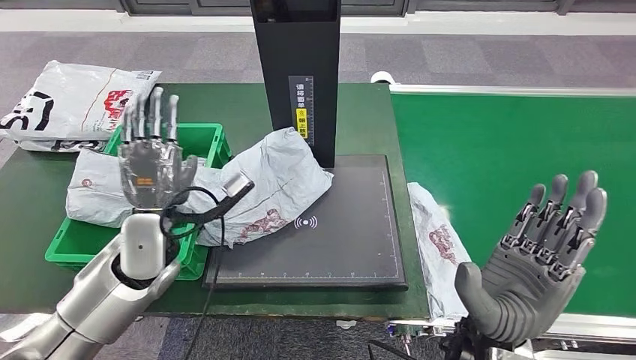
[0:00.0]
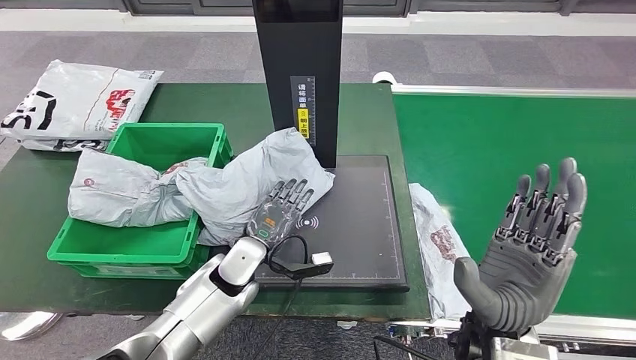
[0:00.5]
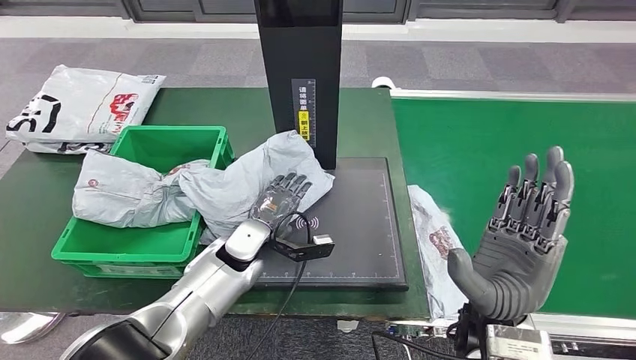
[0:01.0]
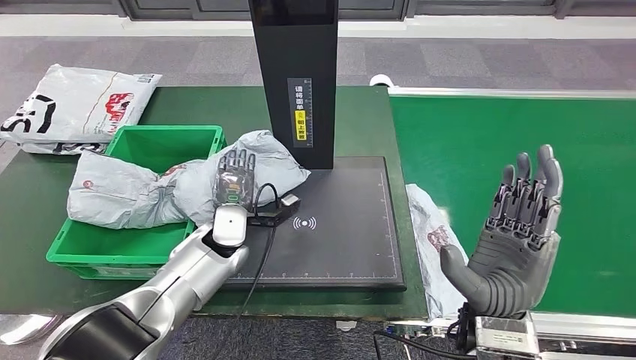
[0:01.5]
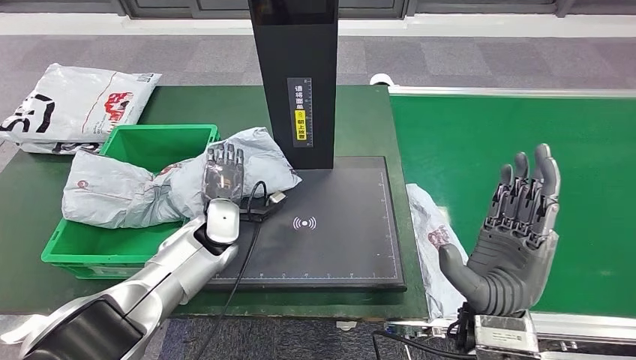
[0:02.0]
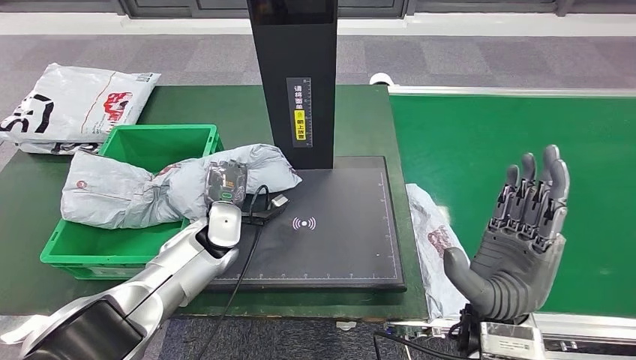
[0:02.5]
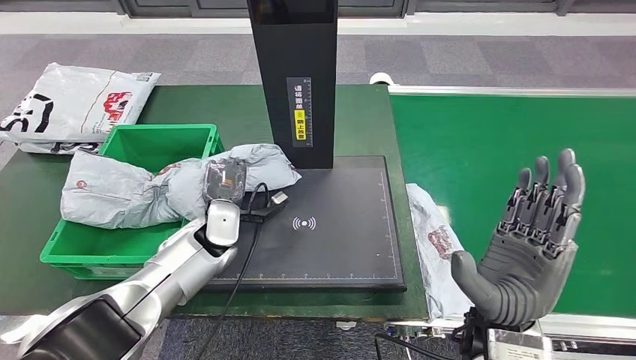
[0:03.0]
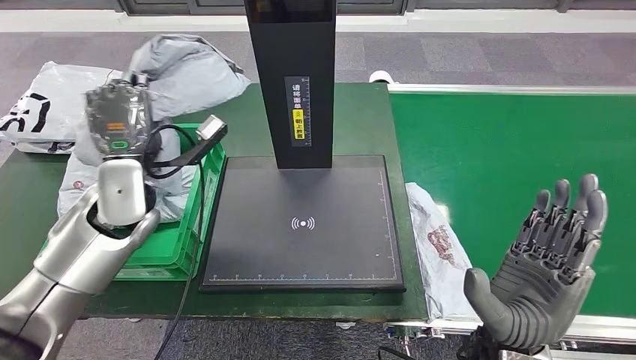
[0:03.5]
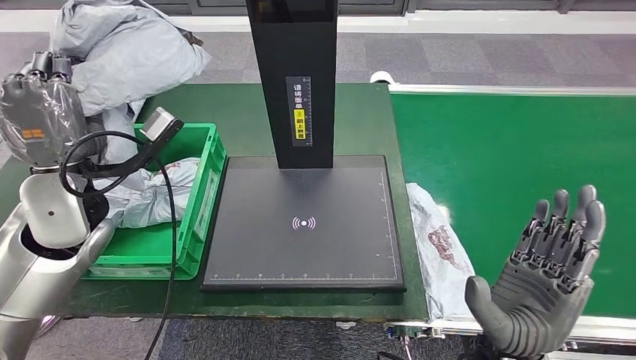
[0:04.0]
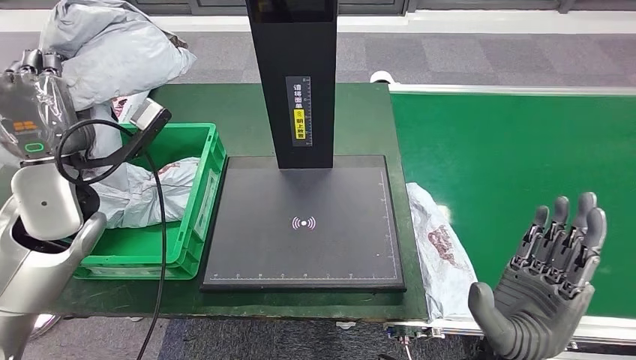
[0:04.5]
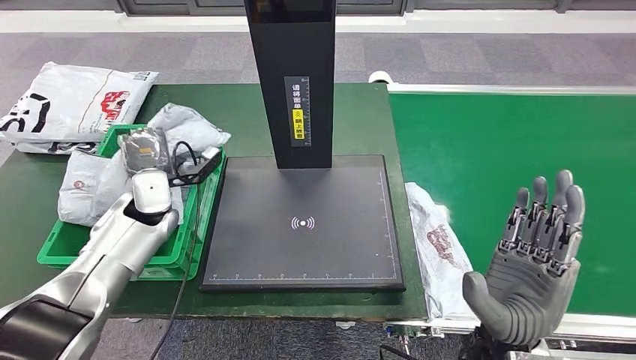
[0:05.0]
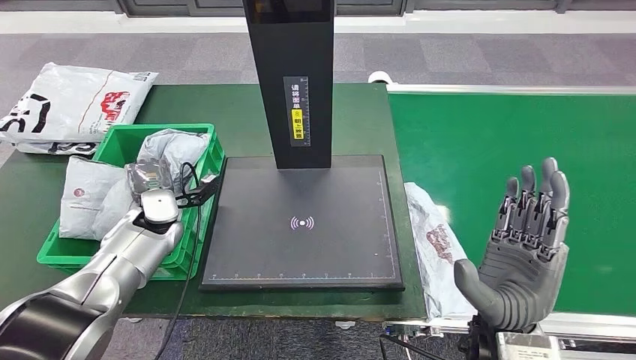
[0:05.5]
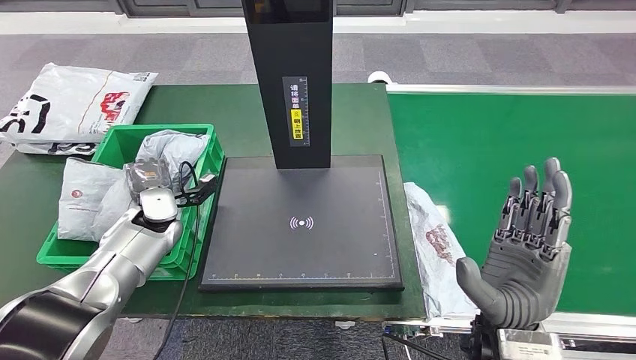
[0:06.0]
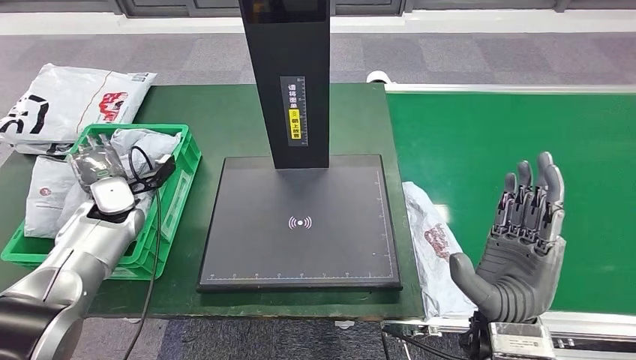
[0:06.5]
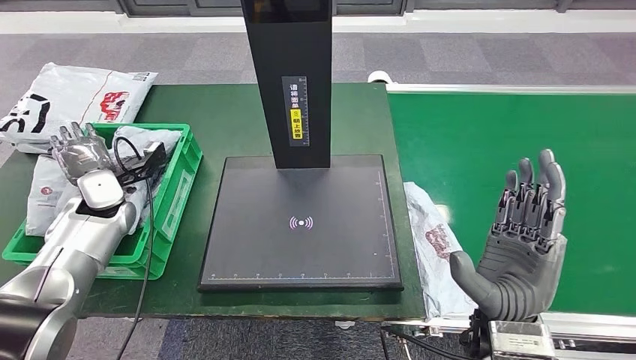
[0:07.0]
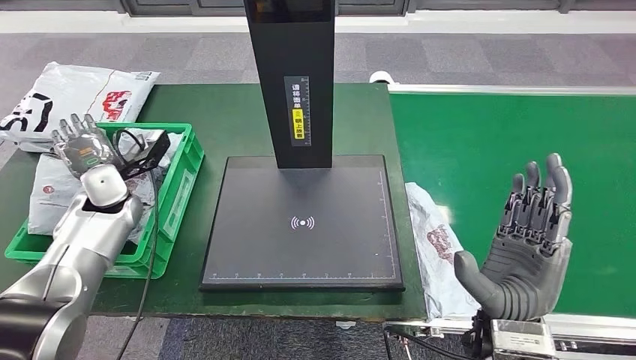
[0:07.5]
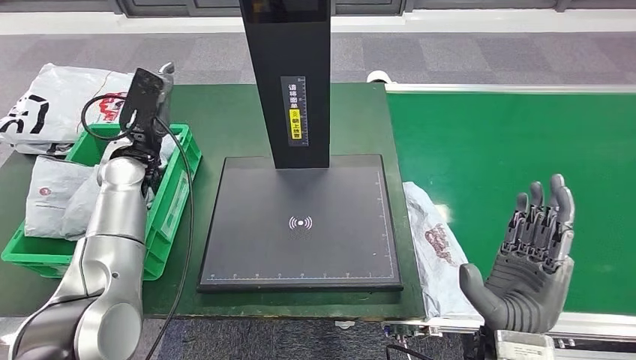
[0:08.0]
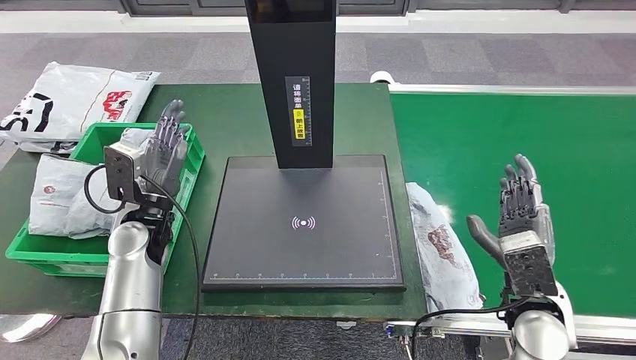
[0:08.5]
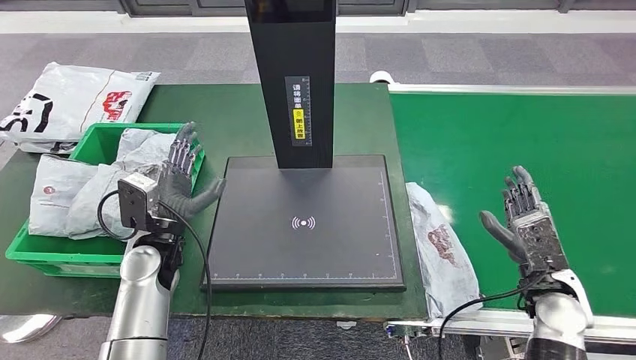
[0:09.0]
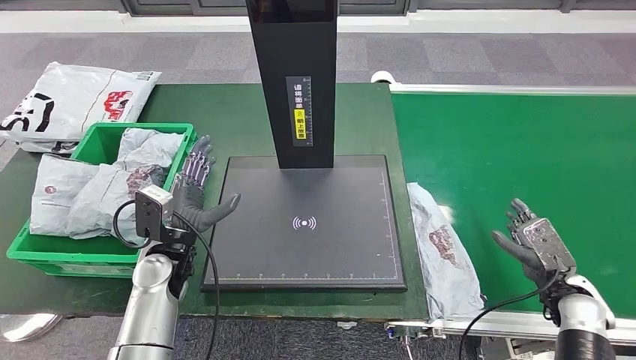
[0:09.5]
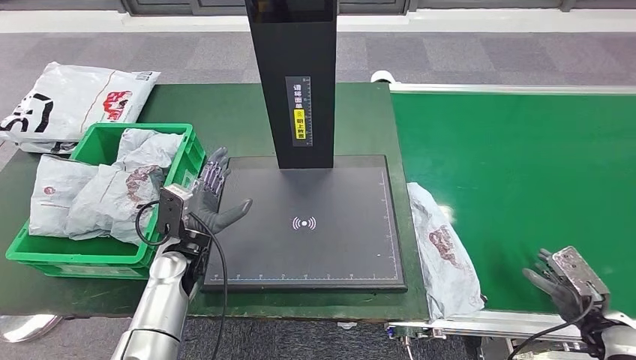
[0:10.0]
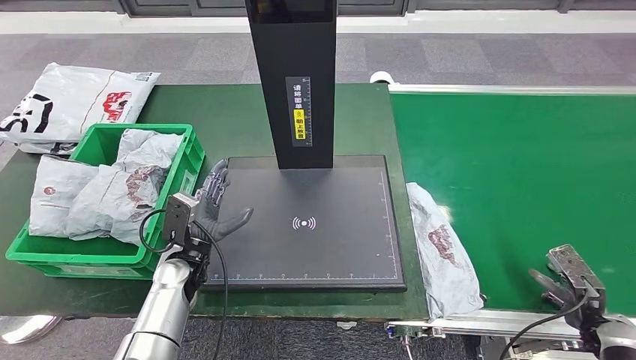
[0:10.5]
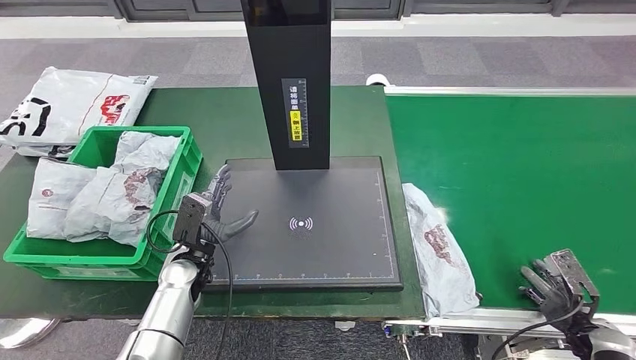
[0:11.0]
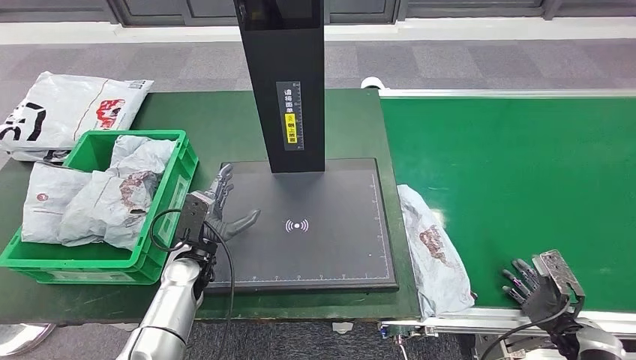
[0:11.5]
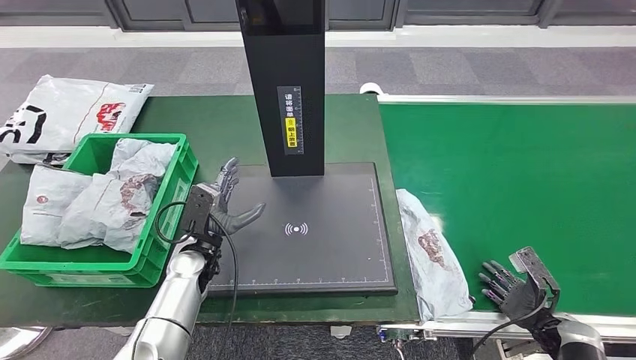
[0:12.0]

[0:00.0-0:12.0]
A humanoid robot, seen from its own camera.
Step, 0:00.0 to 0:04.5: Pick up the parcel from the inbound machine.
Step, 0:05.0 to 0:08.5: Place the parcel into the delivery box.

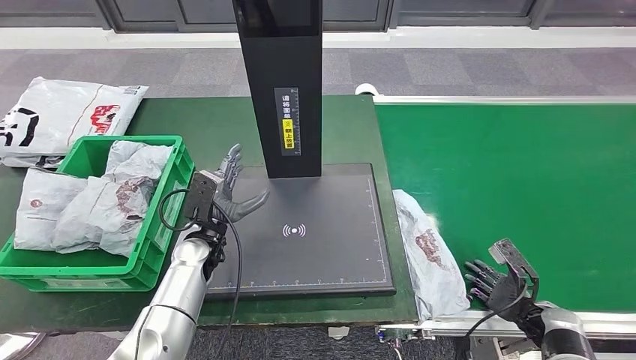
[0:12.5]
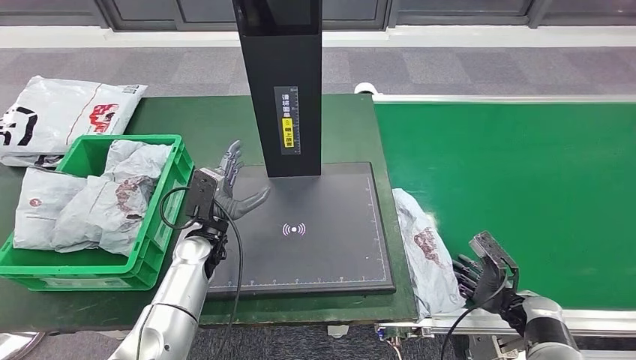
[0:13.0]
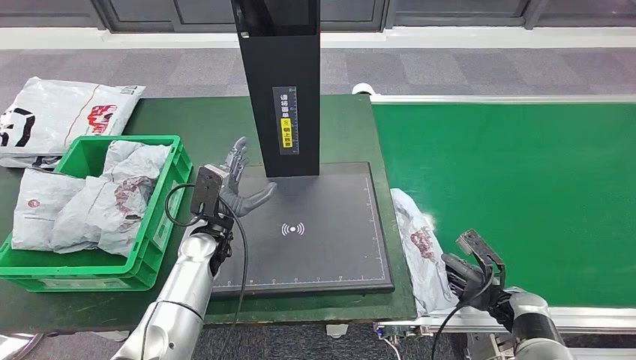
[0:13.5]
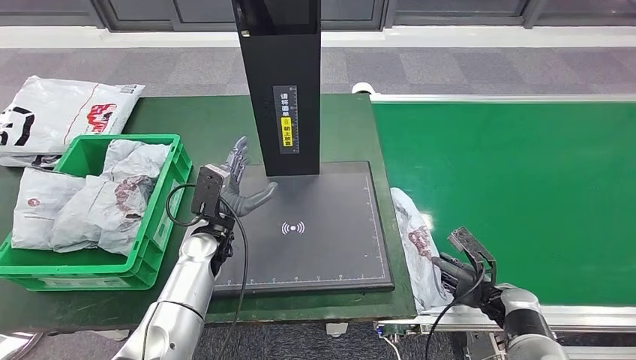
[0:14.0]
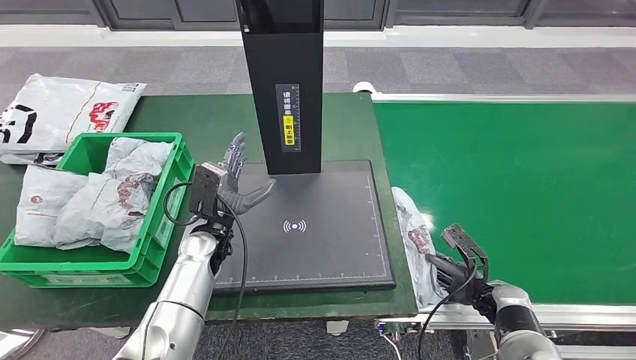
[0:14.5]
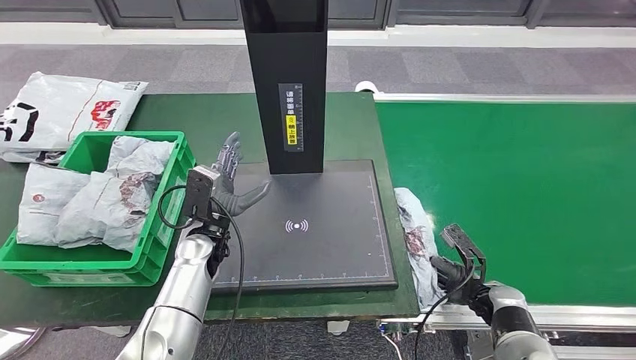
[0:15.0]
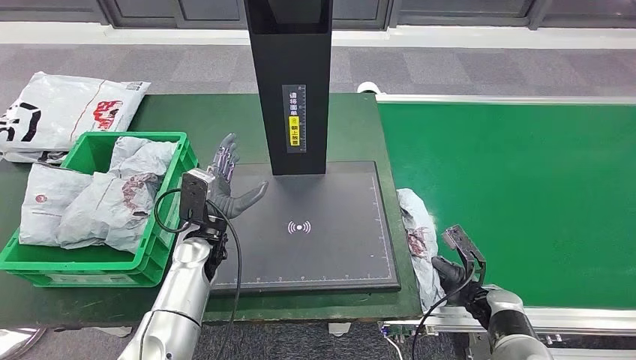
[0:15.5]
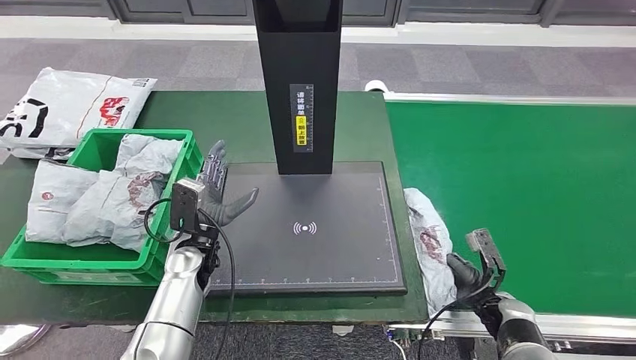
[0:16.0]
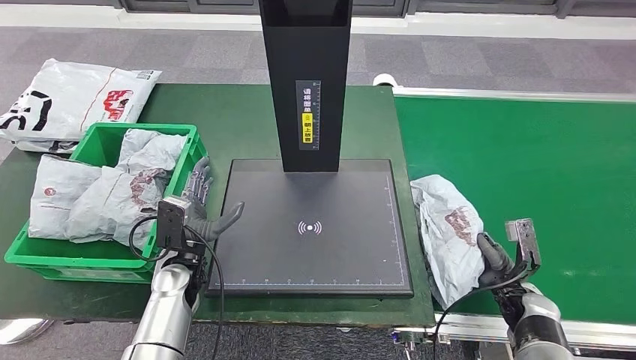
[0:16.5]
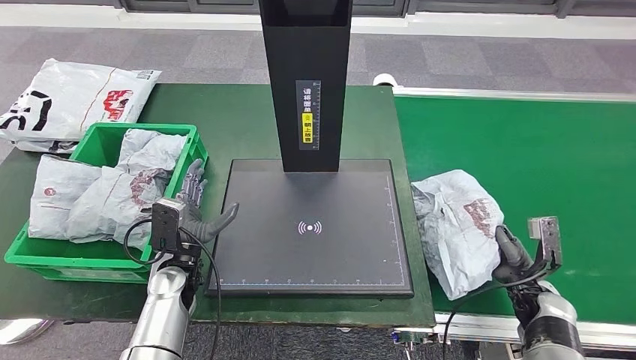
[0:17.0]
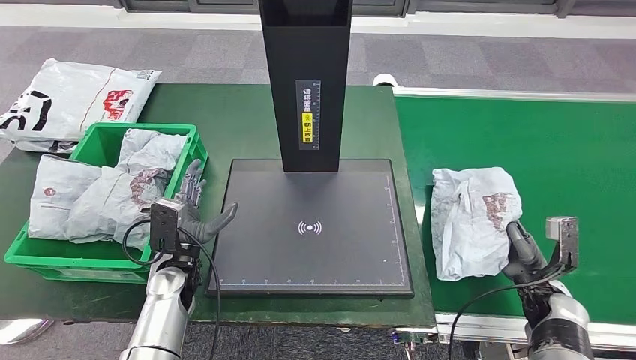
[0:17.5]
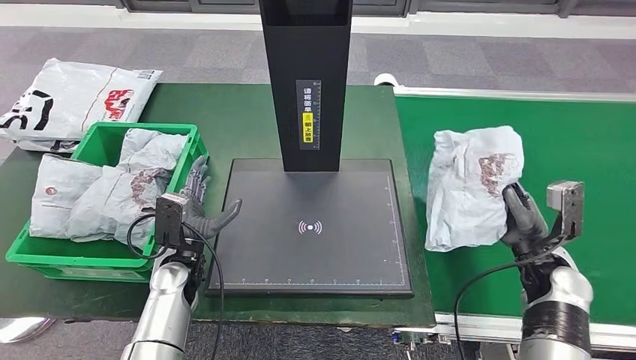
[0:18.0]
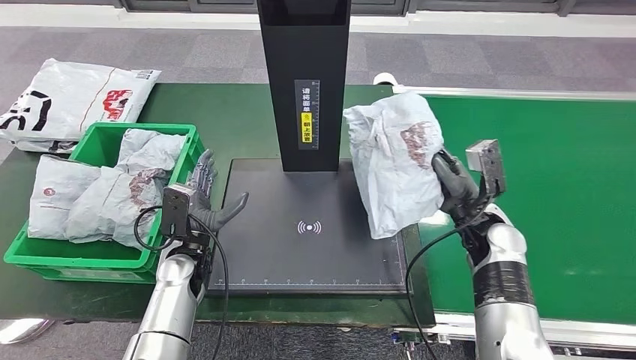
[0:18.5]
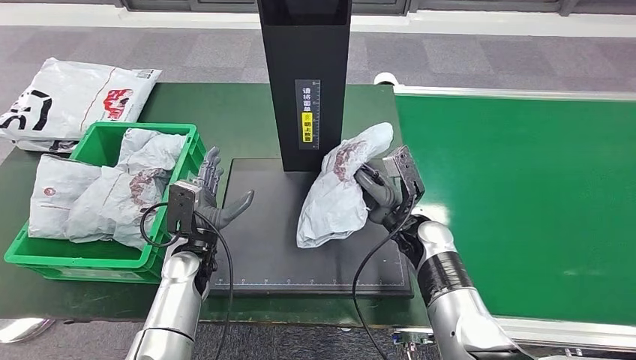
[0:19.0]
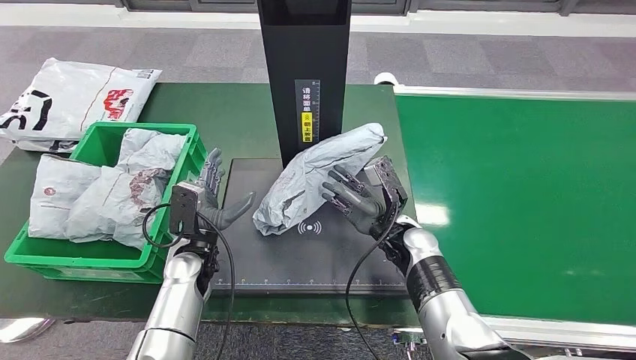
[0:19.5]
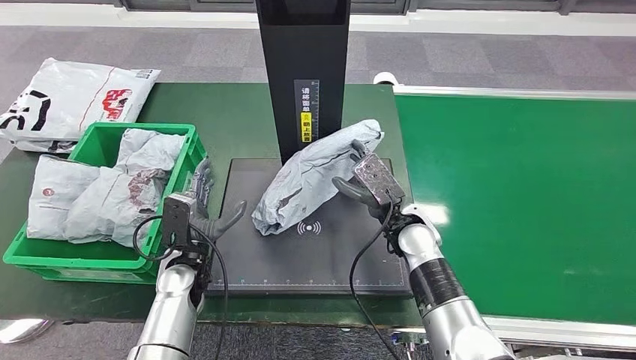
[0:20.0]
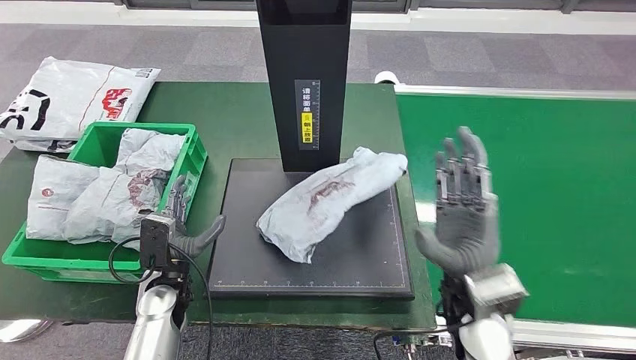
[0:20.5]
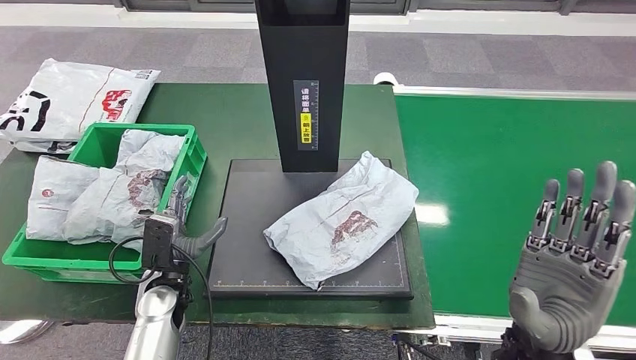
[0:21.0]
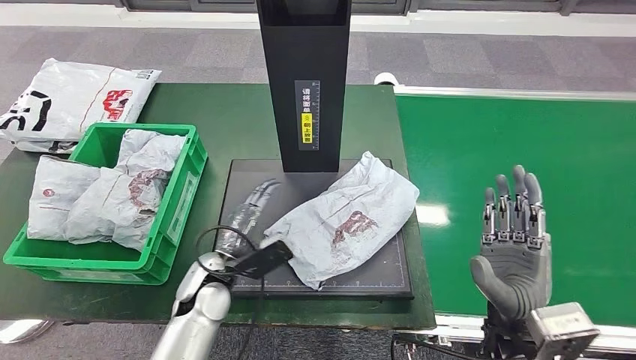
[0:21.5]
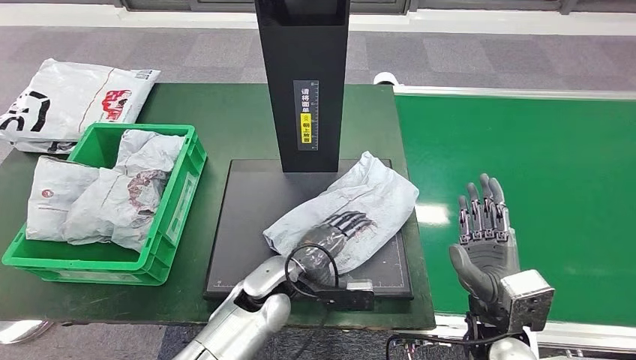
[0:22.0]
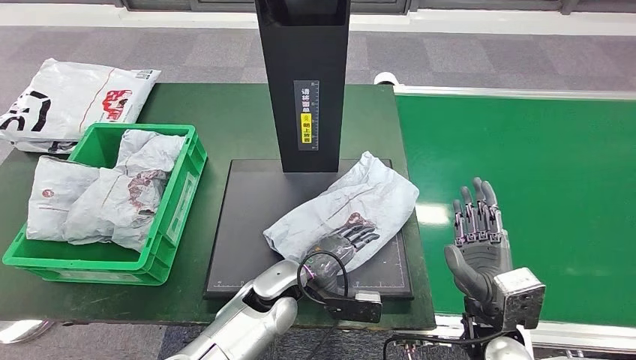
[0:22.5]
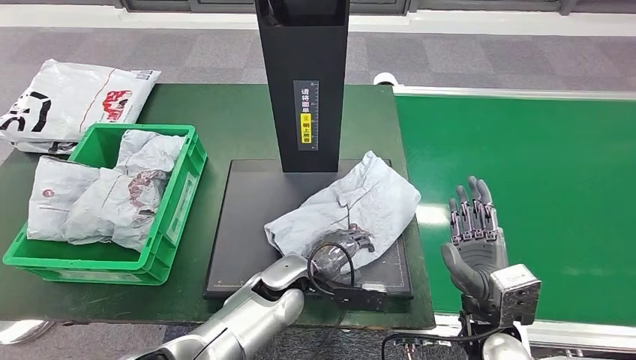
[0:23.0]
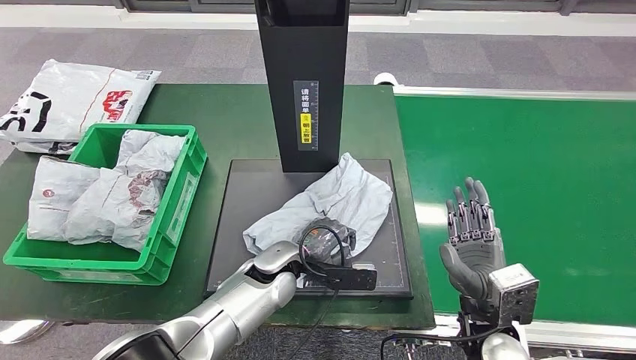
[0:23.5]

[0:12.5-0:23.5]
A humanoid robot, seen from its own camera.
Step, 0:12.5 to 0:17.5: Pick up the parcel from the conveyor belt.
Step, 0:18.5 to 0:22.0: Place the parcel onto the inbound machine.
0:21.5 to 0:23.5: The left hand heads to the right, covering approximately 10 cm. Meanwhile the right hand moves about 5 cm.
